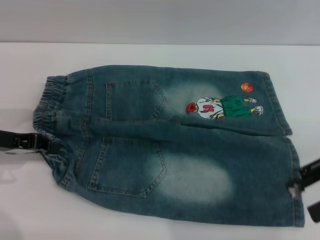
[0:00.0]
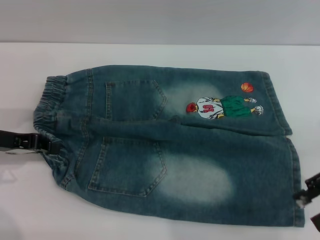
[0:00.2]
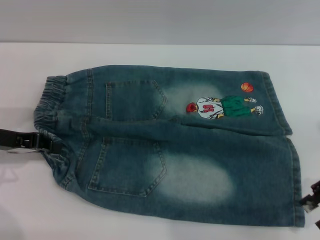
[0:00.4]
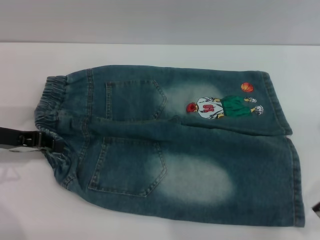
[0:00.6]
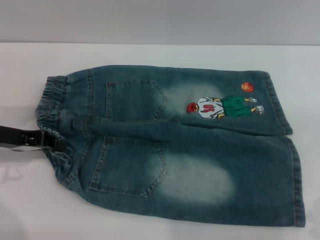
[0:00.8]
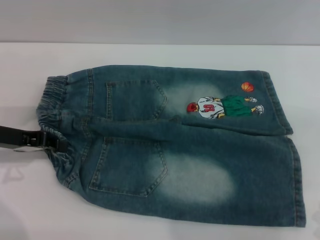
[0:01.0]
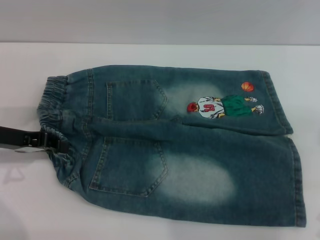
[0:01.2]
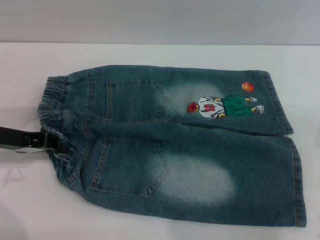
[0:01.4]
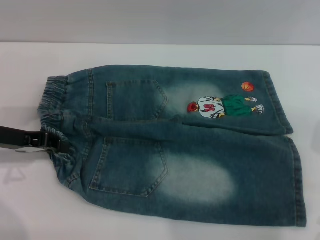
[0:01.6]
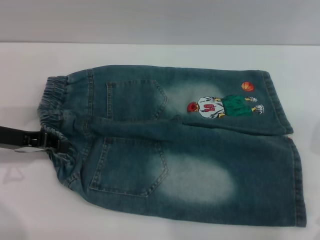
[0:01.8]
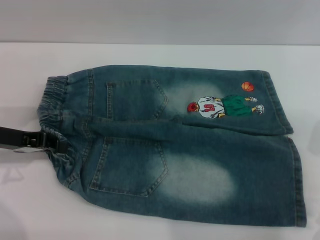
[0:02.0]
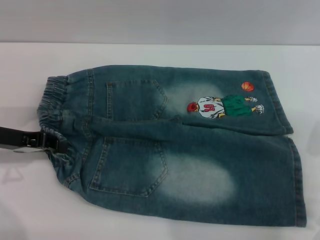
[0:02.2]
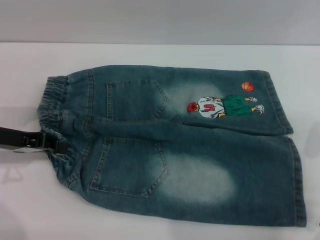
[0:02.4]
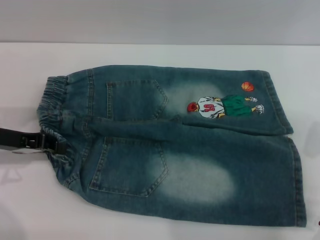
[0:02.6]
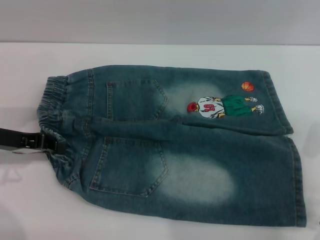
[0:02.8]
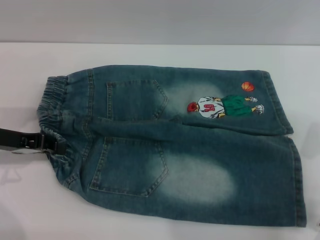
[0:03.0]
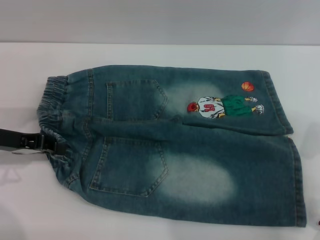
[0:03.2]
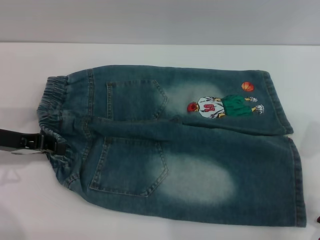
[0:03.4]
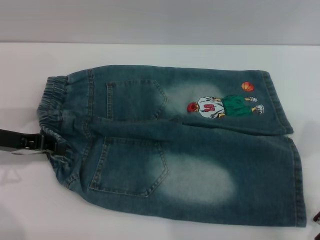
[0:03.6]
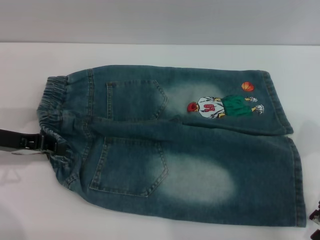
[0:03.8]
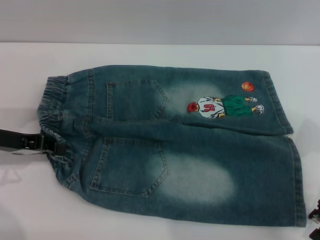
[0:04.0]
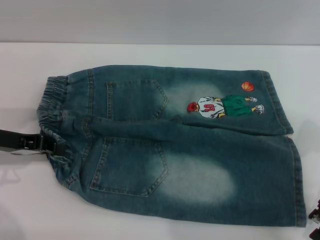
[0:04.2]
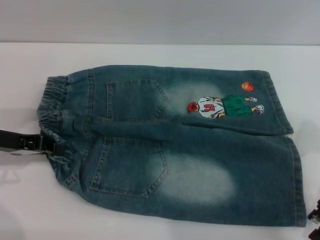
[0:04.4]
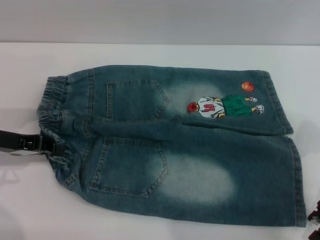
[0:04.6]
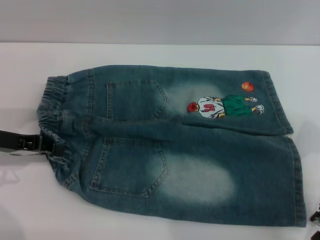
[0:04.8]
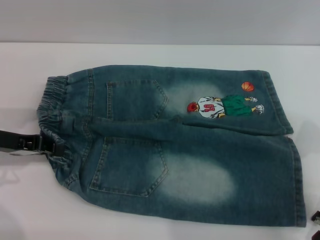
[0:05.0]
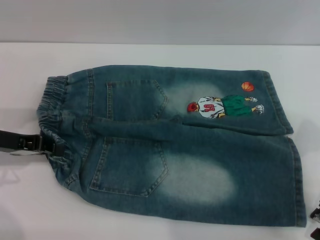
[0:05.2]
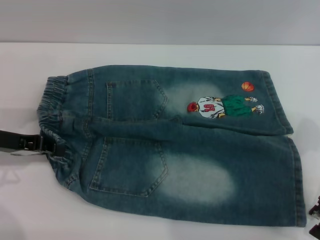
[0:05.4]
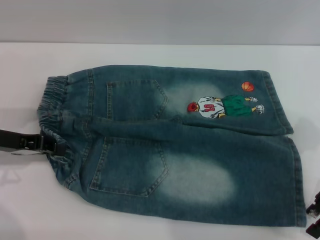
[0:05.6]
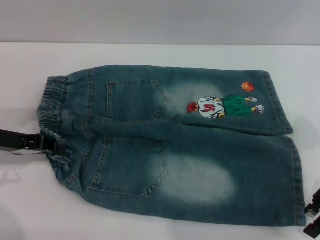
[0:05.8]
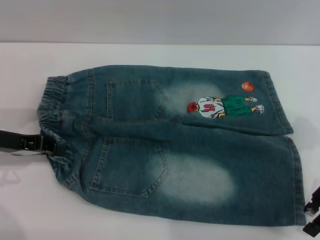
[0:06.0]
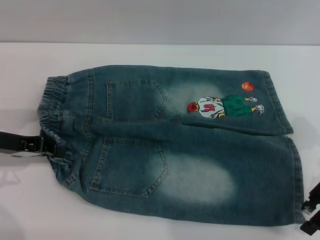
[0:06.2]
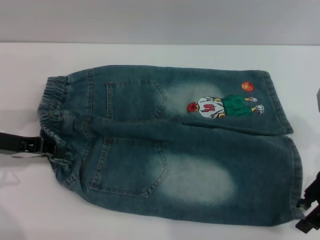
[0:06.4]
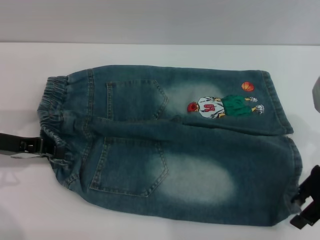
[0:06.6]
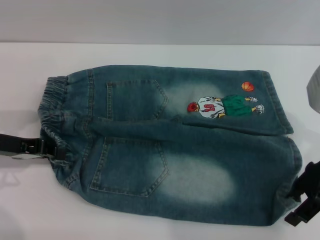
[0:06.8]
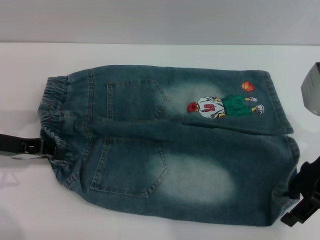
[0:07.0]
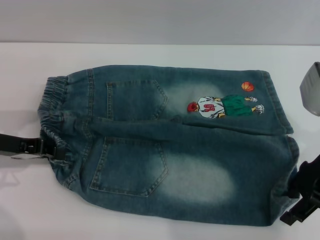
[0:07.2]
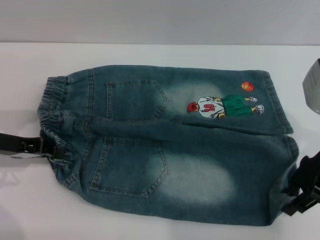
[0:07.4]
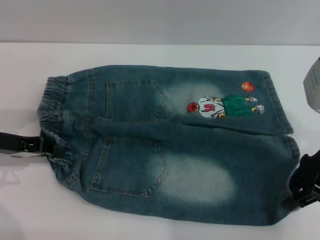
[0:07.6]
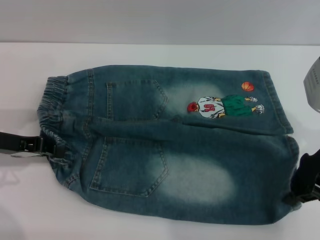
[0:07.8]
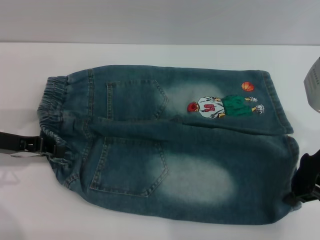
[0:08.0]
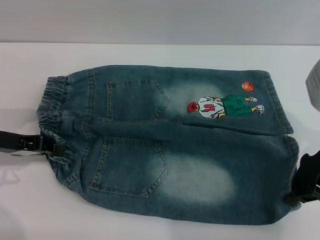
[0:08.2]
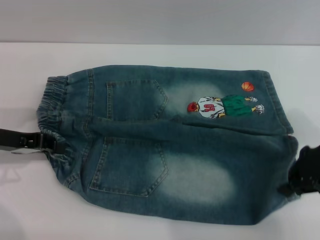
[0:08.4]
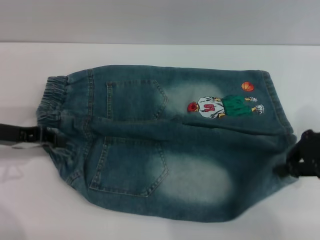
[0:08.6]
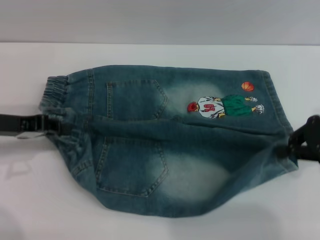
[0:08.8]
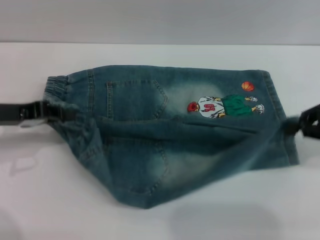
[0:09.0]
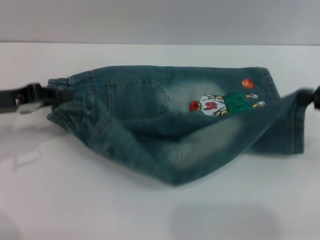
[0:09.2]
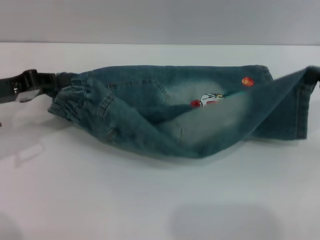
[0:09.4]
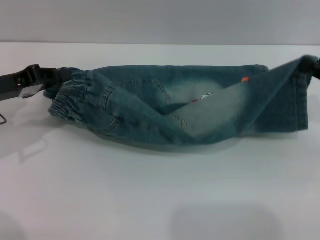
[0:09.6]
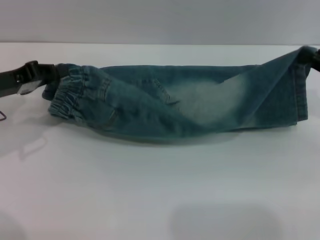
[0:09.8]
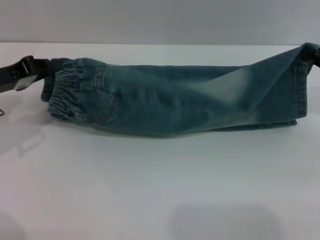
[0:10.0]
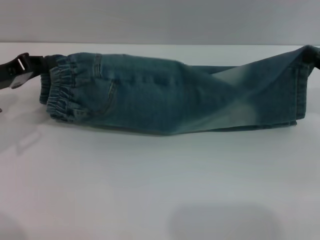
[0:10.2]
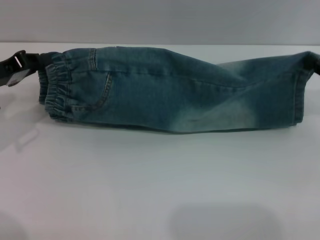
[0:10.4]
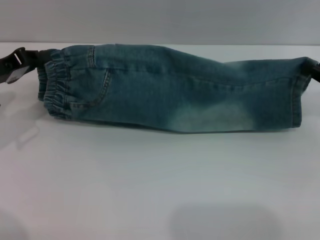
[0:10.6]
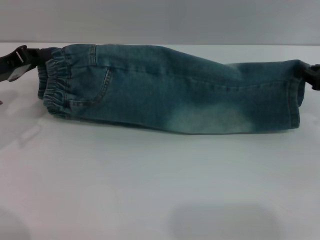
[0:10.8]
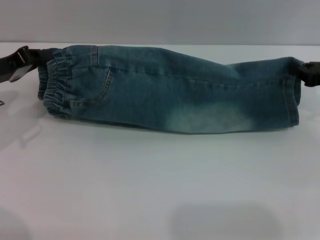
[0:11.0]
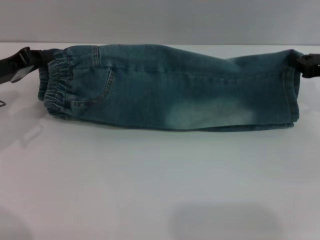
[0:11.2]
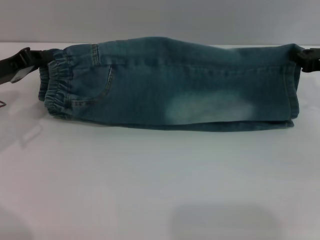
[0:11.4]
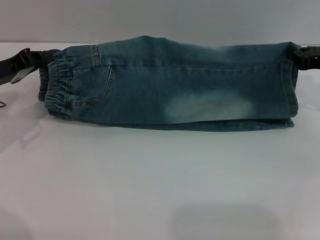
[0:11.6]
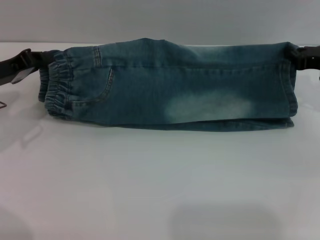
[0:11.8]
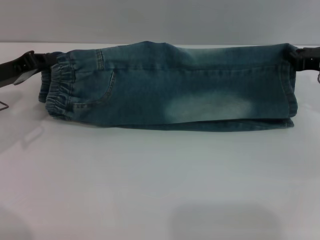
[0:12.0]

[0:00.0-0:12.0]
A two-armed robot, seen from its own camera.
0:01.6 to 0:04.4: The grippers move only a little.
0:04.4 to 0:06.0: The two grippers keep their place.
0:06.0 to 0:07.6: The right gripper closes up.
0:07.6 to 0:09.0: The right gripper moves to the right, roughly 10 cm, and closes.
0:10.4 to 0:12.0: The right gripper shifts some 5 cm forward.

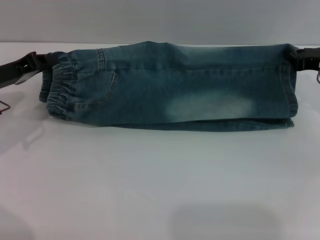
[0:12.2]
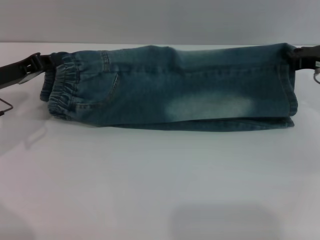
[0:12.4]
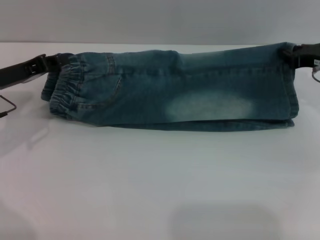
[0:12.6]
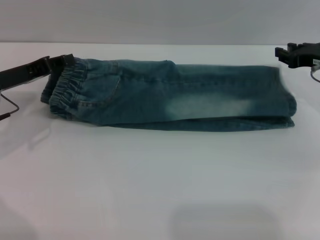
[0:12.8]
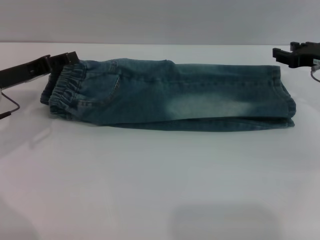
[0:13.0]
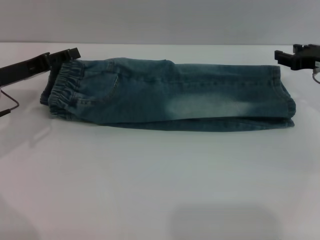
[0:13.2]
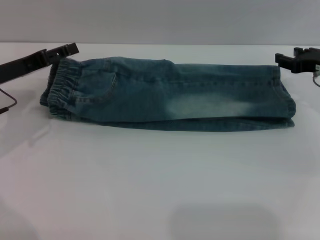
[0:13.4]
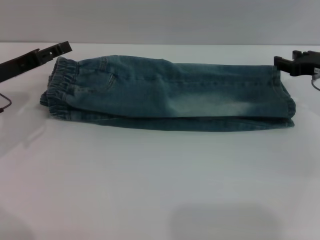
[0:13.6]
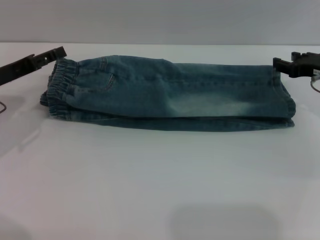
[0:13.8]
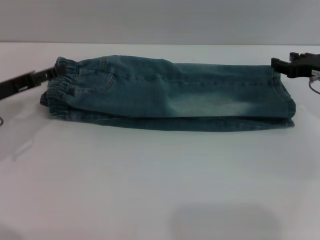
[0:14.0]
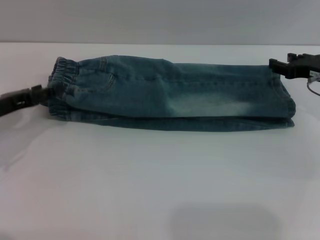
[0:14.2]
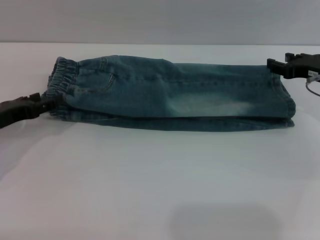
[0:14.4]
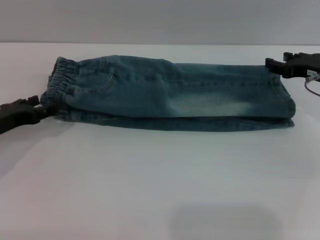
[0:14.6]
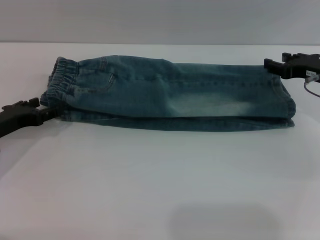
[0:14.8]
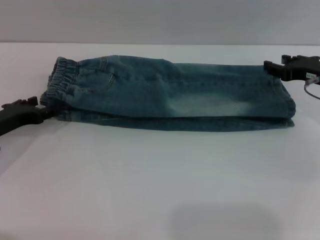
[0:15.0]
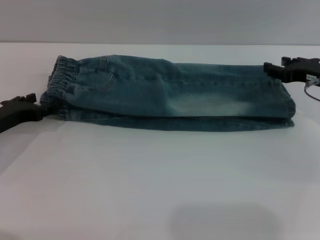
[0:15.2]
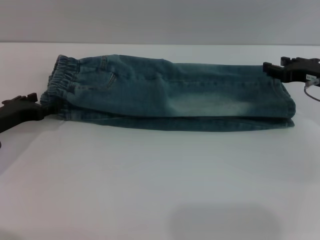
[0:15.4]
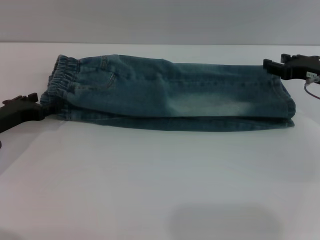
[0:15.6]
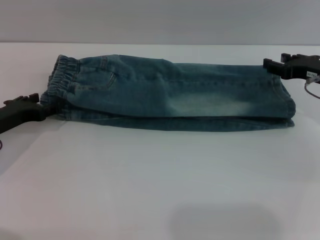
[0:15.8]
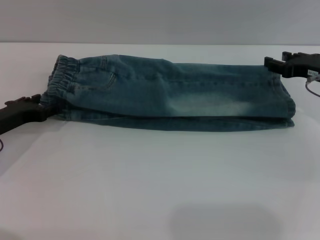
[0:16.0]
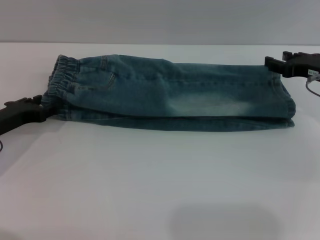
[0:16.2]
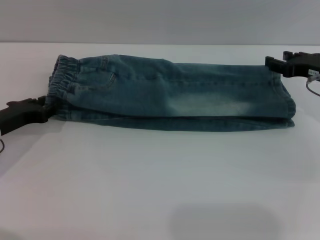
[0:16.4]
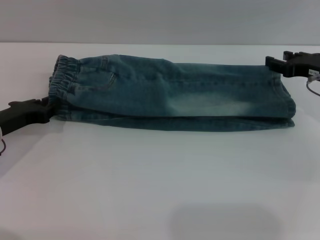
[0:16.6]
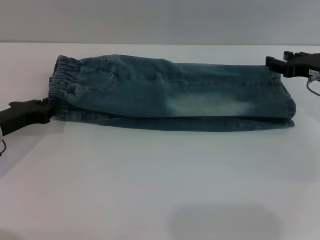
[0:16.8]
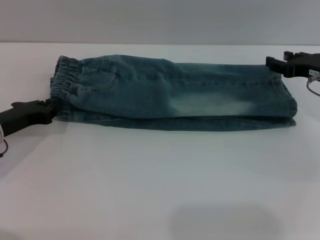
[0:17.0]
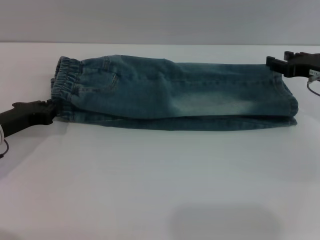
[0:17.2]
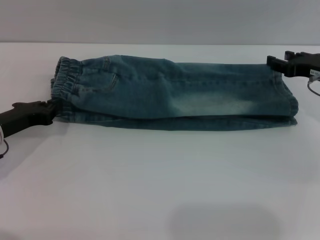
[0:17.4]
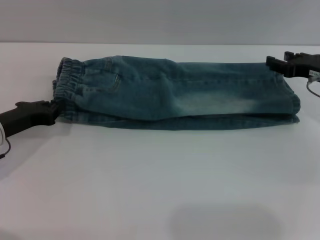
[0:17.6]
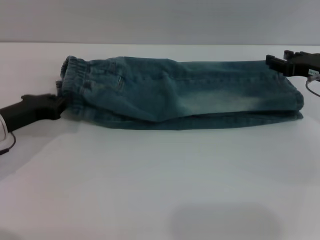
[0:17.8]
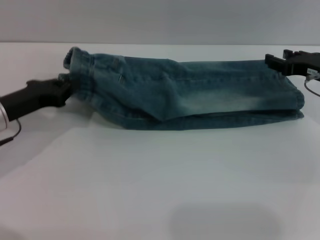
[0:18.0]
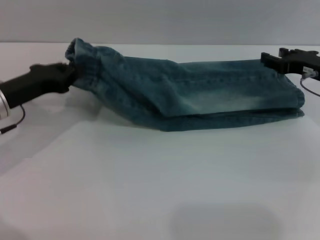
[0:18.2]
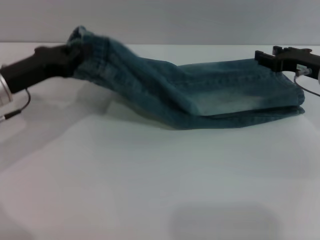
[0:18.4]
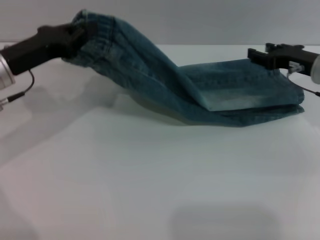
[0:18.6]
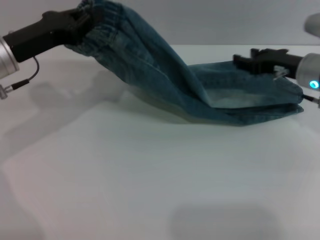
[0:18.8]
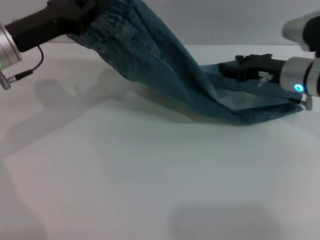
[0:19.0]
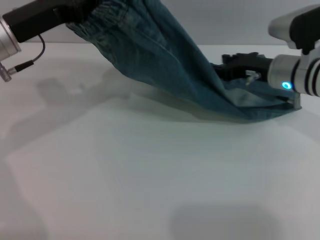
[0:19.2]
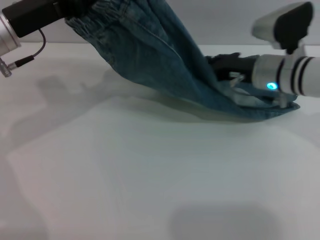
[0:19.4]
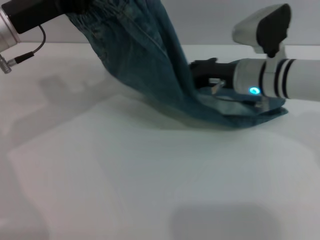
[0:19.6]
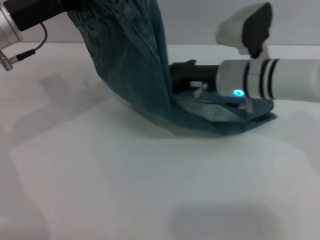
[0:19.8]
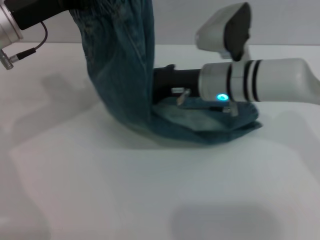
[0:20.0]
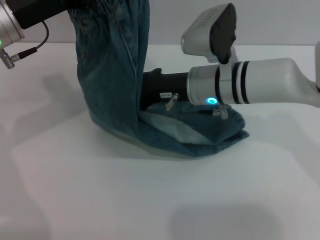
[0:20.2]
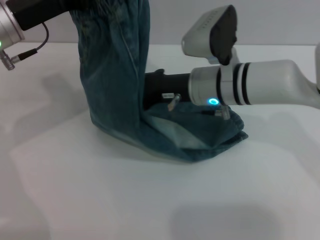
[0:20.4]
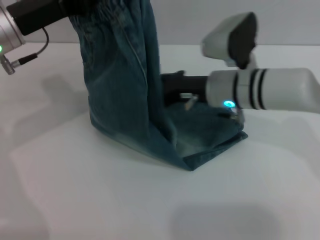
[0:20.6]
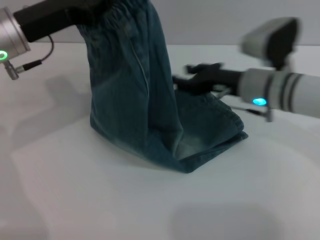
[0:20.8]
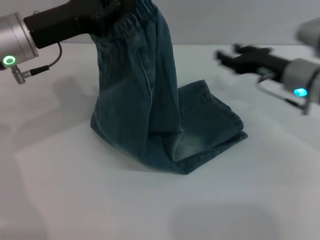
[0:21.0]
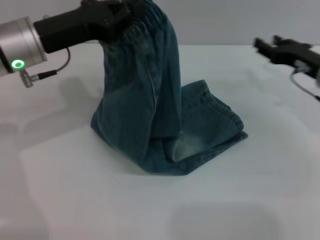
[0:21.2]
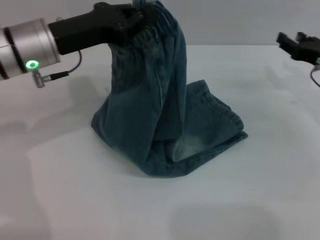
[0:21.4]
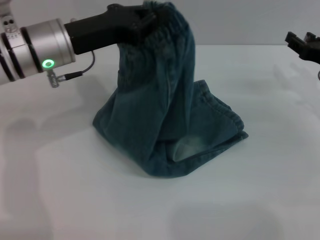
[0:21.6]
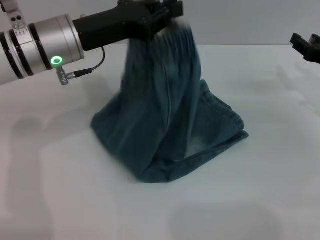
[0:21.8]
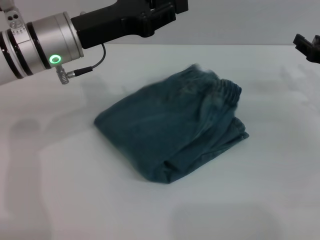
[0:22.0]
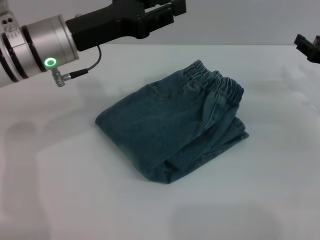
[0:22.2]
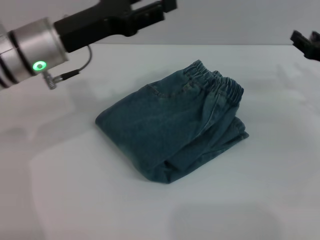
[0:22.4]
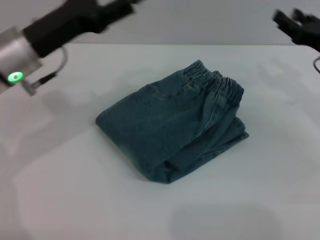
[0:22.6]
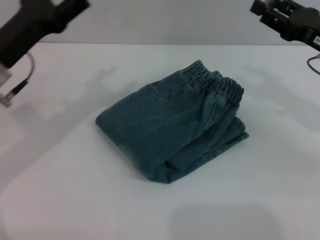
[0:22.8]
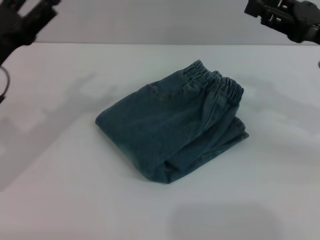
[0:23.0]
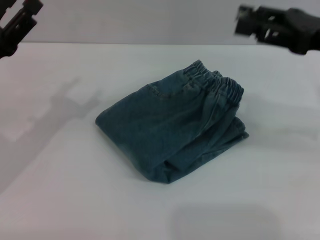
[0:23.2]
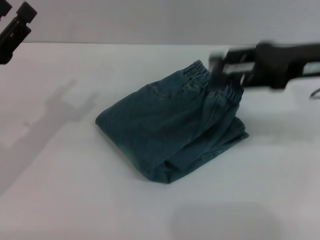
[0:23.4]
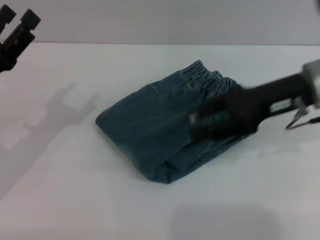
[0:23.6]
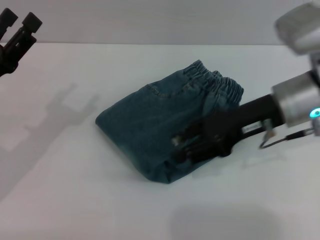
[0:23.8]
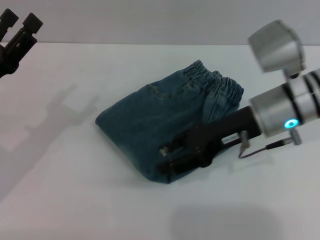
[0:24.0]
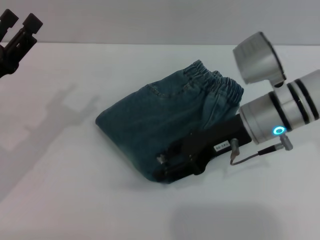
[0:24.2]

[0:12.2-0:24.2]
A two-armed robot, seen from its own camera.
Step, 0:12.2 to 0:14.4: Fold the bottom of the pants upward with both grippers.
Step, 0:14.6 to 0:23.0: Fold the pants from left to right with the left gripper.
0:12.2 to 0:13.8: The right gripper opens its fingers. Meanwhile the left gripper opens its fingers.
0:13.8 to 0:15.2: The left gripper shifts roughly 5 cm downward.
0:15.2 to 0:16.6: The left gripper closes its fingers.
0:16.6 to 0:18.2: The left gripper moves upward, approximately 5 cm, and closes.
0:18.2 to 0:19.8: The right gripper shifts about 15 cm to the left. The left gripper travels upward by approximately 10 cm.
0:19.8 to 0:21.2: The right gripper shifts some 15 cm to the right.
0:21.2 to 0:22.6: The left gripper opens.
0:22.6 to 0:24.2: The right gripper shifts approximately 15 cm to the left. The left gripper moves backward, to the left and downward, about 10 cm.
